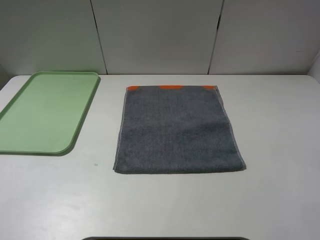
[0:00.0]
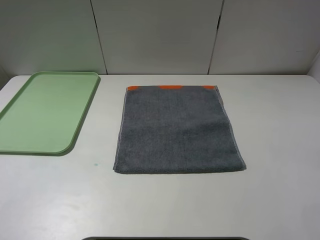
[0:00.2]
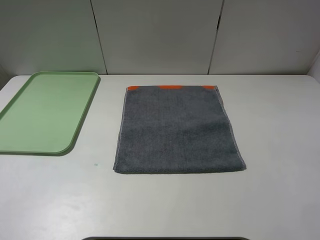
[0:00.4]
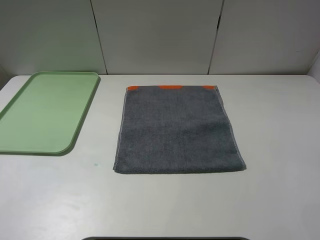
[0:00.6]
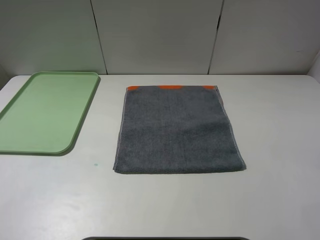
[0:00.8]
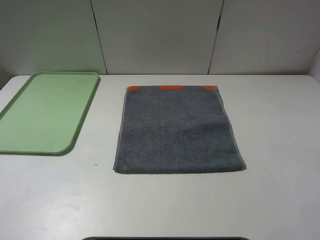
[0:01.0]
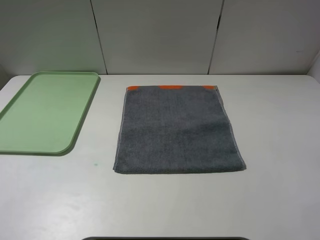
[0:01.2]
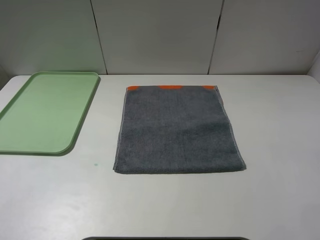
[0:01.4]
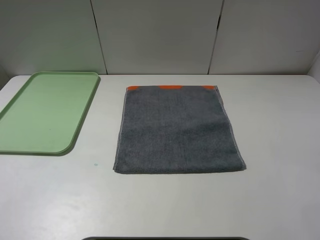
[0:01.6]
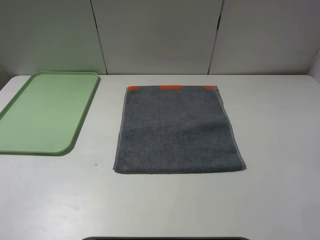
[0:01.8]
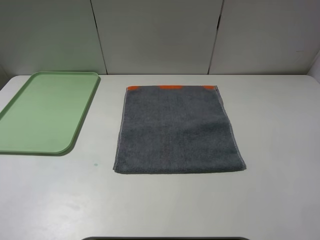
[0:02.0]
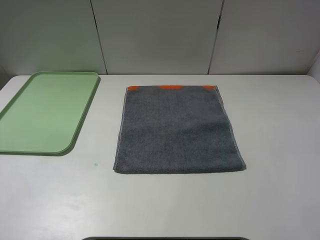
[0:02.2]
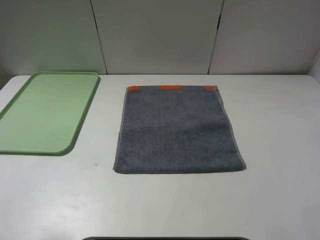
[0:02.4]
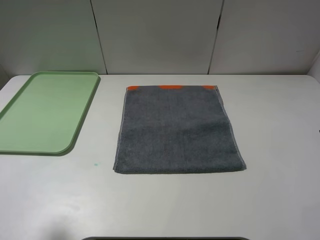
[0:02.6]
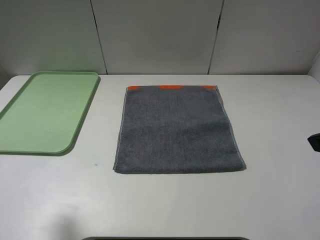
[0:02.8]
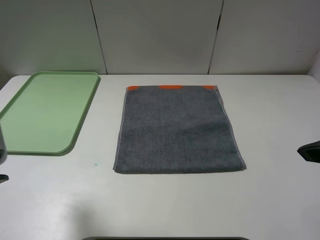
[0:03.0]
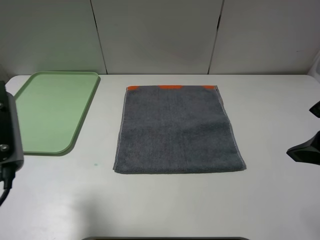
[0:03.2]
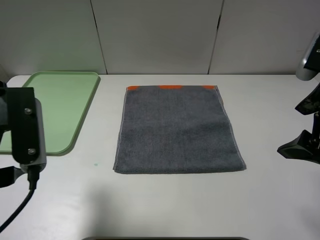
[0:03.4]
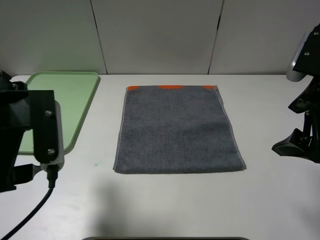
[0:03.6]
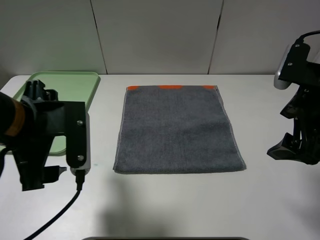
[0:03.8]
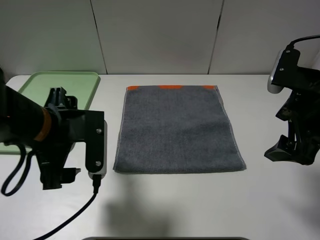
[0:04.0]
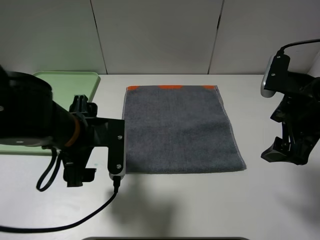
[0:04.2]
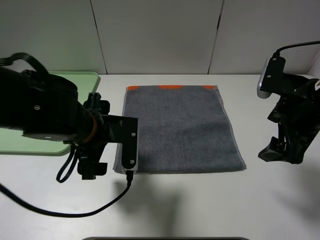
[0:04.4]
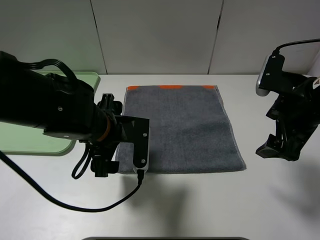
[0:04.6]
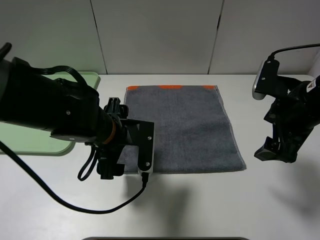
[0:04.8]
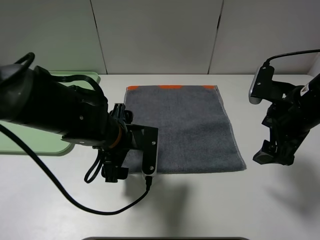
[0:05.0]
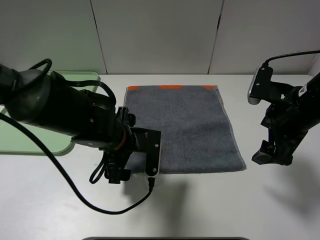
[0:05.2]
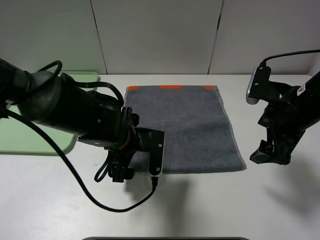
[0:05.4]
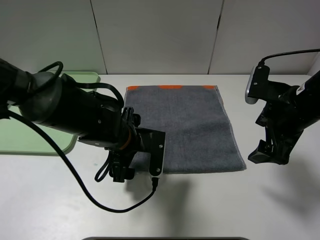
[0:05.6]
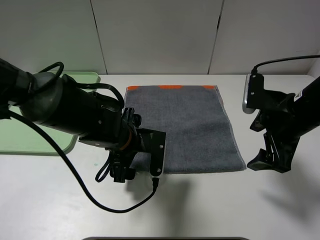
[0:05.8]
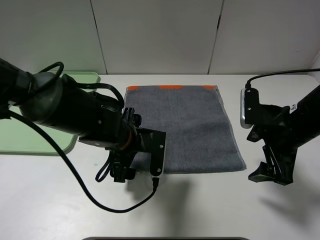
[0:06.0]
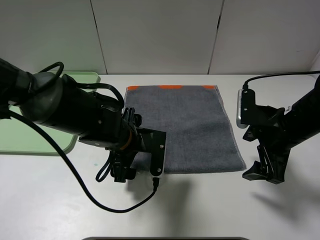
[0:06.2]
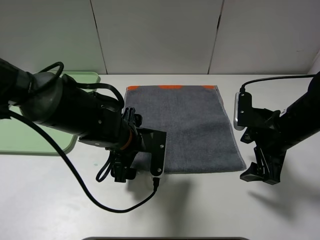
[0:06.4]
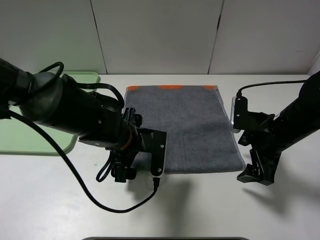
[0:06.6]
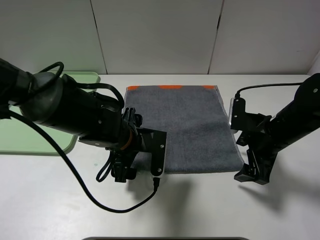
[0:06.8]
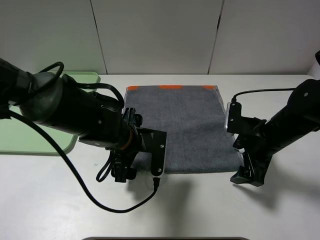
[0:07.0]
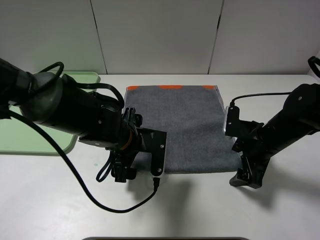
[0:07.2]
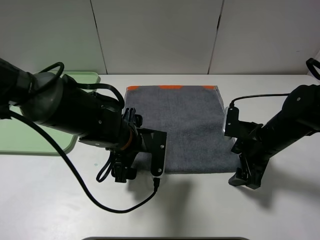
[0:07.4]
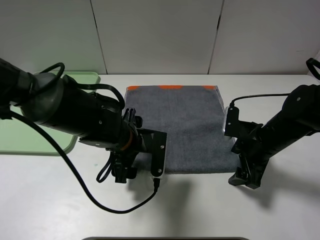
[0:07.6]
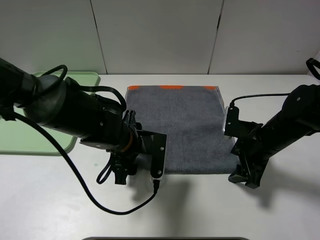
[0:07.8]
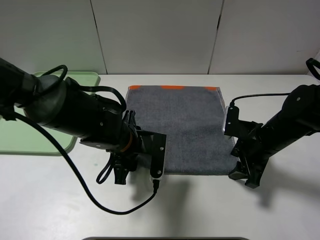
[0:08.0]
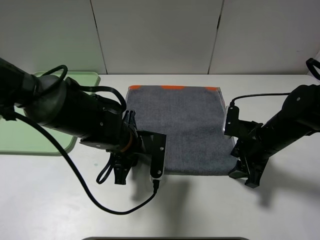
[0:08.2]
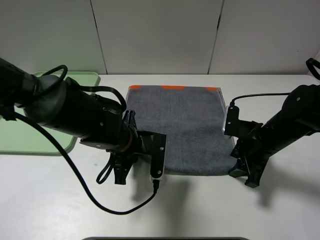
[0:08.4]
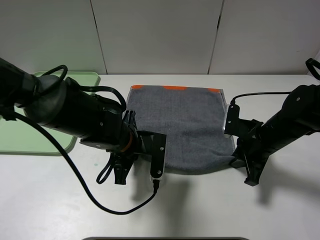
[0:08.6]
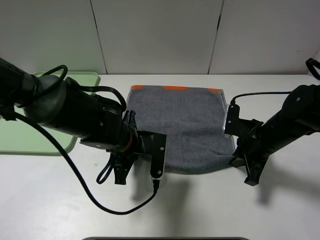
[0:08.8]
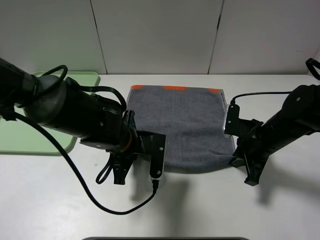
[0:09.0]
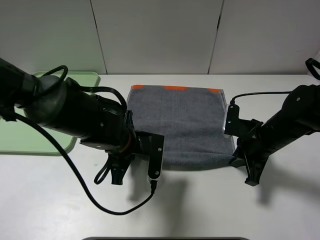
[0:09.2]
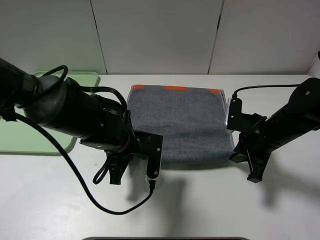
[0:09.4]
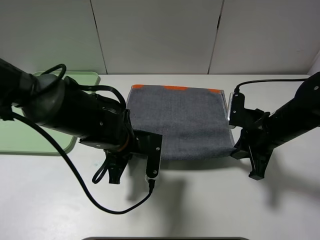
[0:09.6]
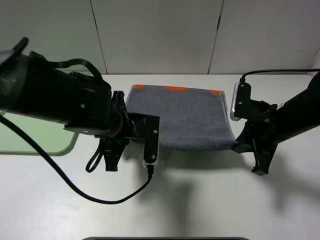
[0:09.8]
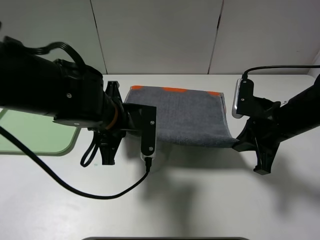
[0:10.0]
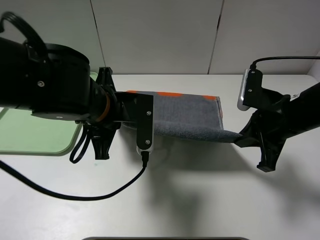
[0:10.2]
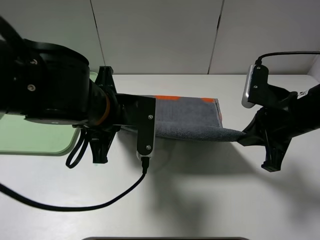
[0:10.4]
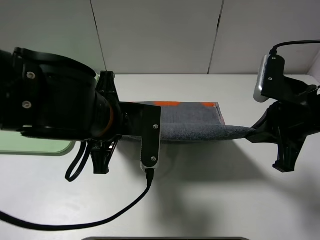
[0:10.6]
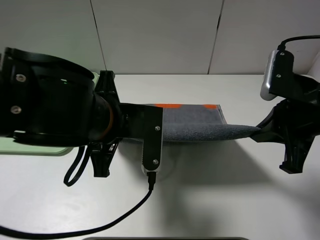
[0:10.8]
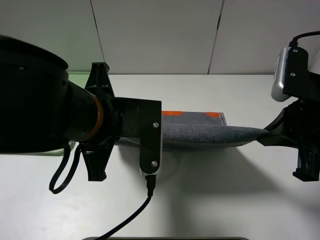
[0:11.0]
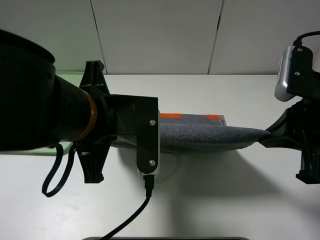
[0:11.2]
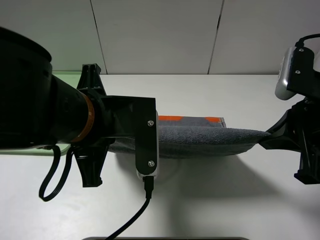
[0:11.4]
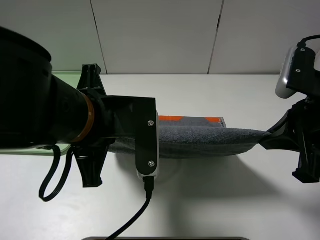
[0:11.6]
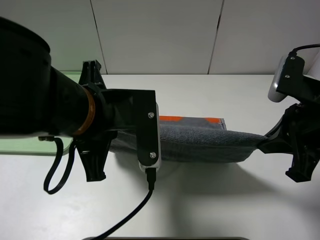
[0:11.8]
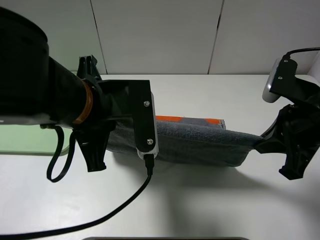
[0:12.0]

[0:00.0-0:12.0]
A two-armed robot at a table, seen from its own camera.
0:00.0 to 0:01.6: The two grippers keep their place.
0:01.6 to 0:03.0: The left gripper goes roughly 15 cm forward and to the right. Meanwhile the right gripper shifts roughly 15 cm forward.
0:03.0 to 0:04.4: The left gripper heads to the right, downward and forward, covering about 20 cm, while the right gripper shifts approximately 10 cm forward and downward.
0:04.4 to 0:06.0: The two grippers go about 5 cm downward.
0:06.0 to 0:07.6: The right gripper moves downward, approximately 5 cm.
0:07.6 to 0:09.0: The right gripper closes, while the left gripper closes up.
0:09.0 to 0:10.4: The grippers both shift upward by some 10 cm.

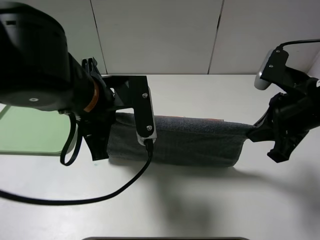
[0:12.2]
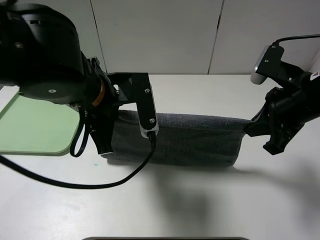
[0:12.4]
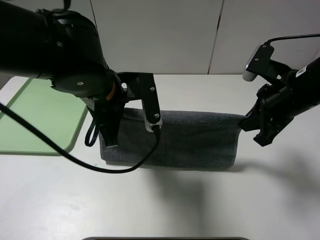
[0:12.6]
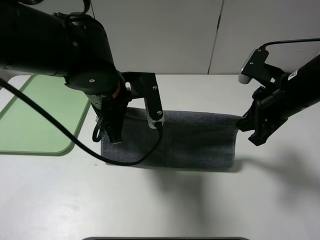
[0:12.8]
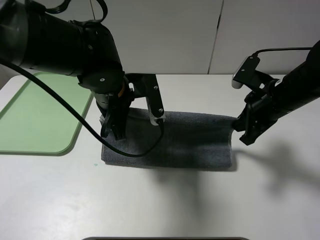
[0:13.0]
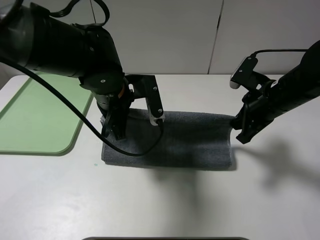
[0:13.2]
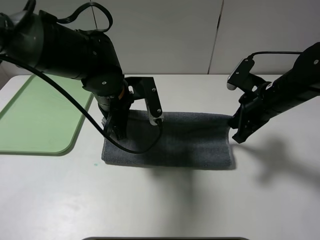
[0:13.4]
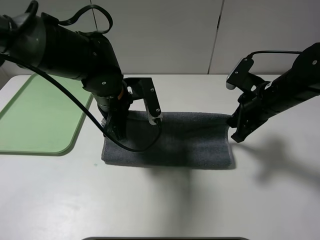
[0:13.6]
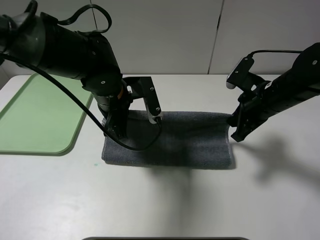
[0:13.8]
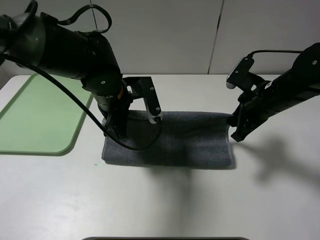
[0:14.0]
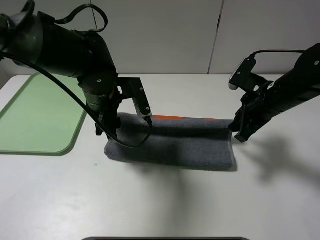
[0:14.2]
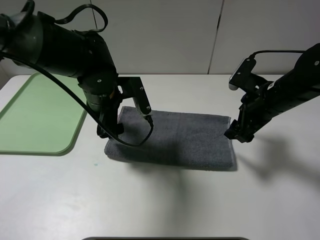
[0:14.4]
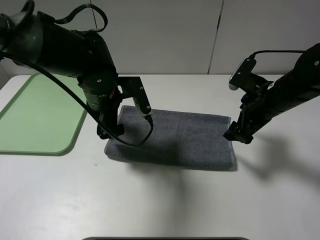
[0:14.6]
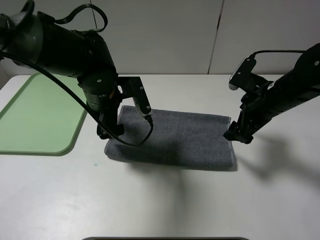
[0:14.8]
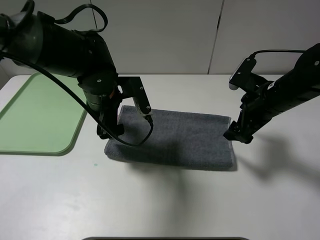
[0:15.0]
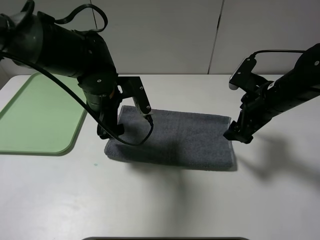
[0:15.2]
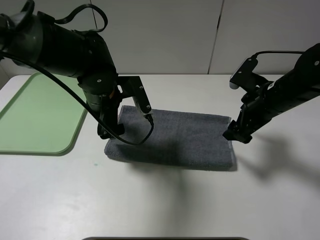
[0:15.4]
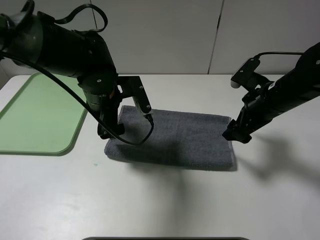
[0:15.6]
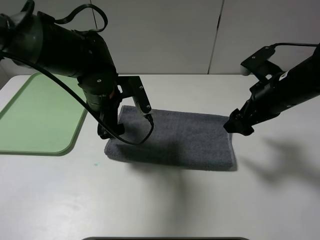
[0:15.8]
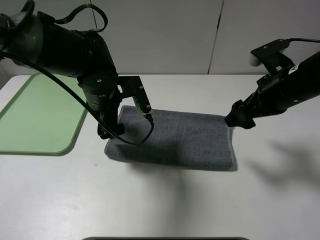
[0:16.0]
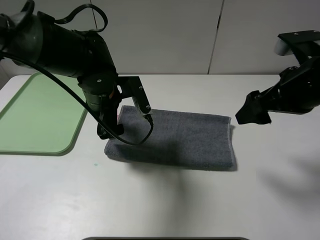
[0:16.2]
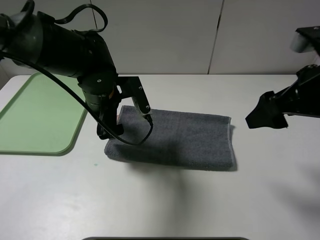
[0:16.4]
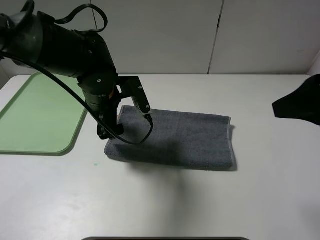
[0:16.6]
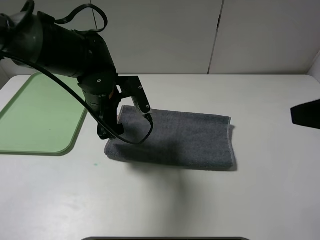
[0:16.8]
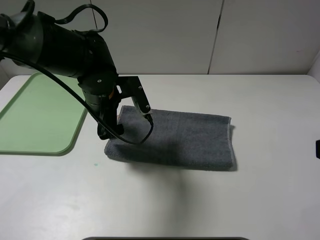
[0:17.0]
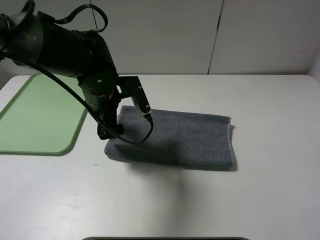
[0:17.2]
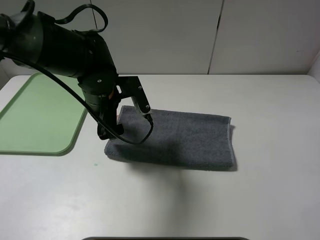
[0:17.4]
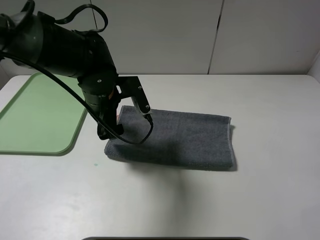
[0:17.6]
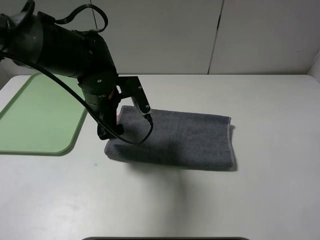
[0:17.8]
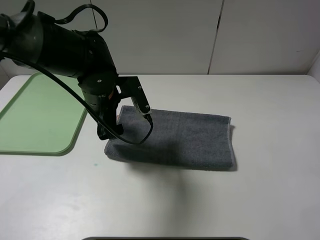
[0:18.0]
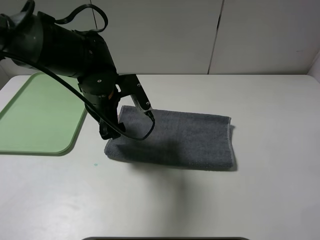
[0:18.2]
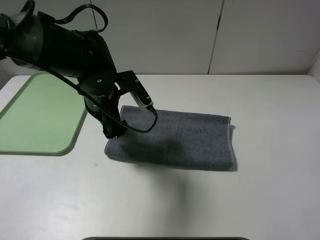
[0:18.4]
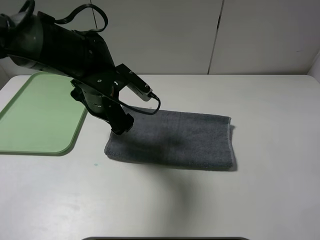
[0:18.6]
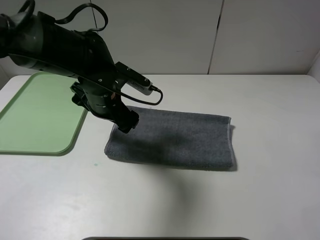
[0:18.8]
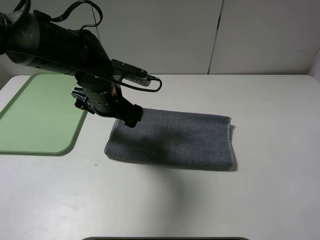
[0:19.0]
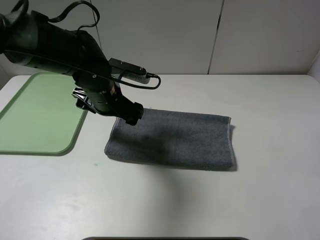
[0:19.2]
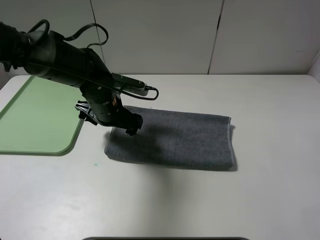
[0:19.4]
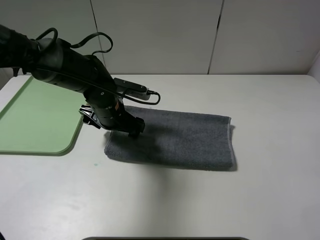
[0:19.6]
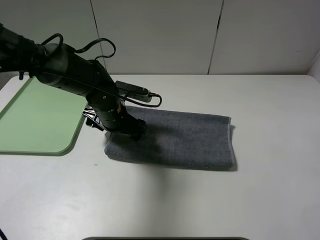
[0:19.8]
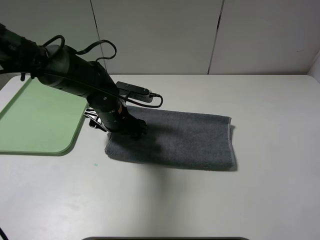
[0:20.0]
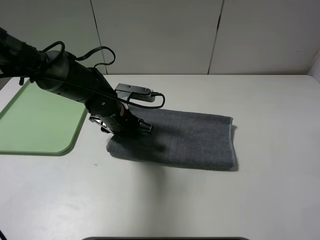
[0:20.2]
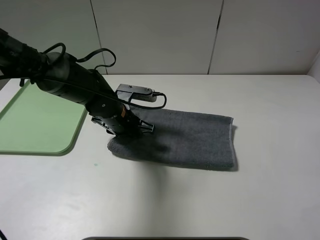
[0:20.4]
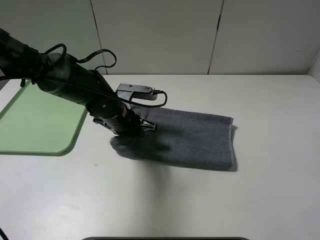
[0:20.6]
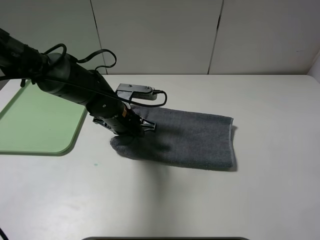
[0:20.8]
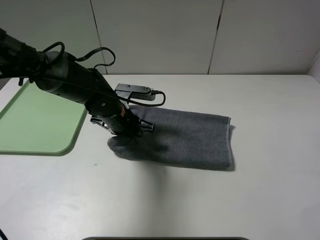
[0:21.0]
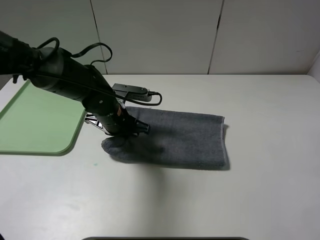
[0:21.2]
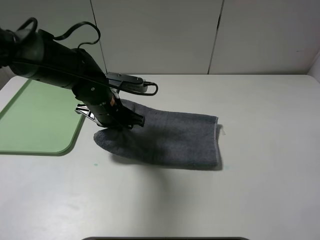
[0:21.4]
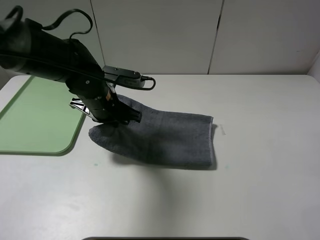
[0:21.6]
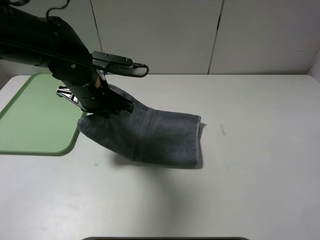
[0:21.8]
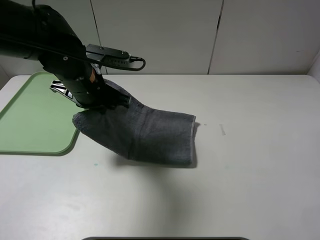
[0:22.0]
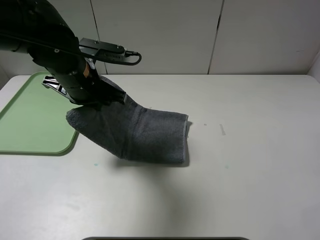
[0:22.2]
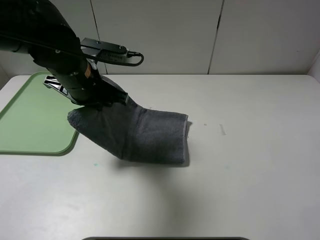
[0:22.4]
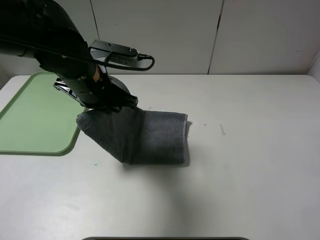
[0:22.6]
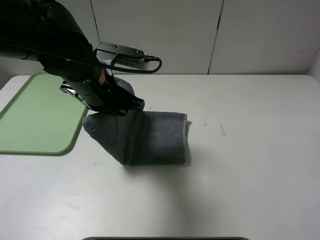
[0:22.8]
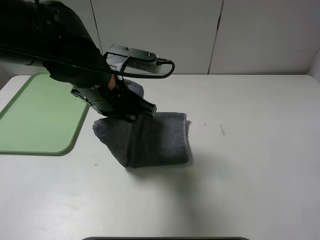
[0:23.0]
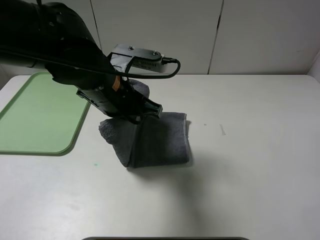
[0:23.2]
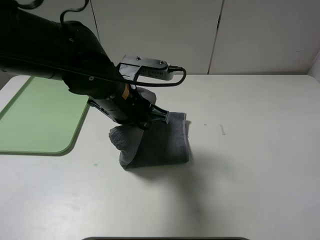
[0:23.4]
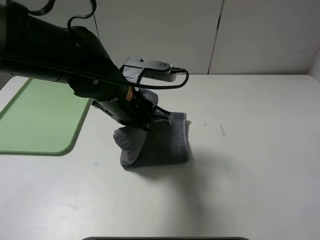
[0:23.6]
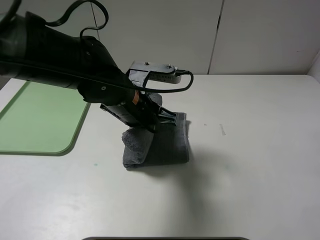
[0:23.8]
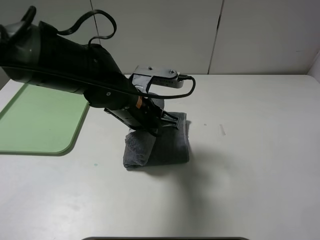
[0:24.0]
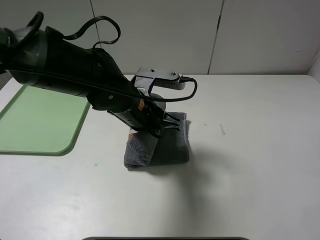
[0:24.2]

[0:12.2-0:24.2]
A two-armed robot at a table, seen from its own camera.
Step, 0:12.2 to 0:14.4: Fold the grey towel upwards.
0:12.2 to 0:13.8: The two grippers go some 10 cm forward and downward.
0:13.8 to 0:15.2: The right gripper opens its fingers; the left gripper opens.
0:15.2 to 0:16.6: The right gripper goes approximately 20 cm upward and backward.
0:16.6 to 0:18.2: The right gripper moves backward, some 15 cm.
0:18.2 to 0:19.8: The left gripper goes about 5 cm downward.
0:19.8 to 0:21.2: The left gripper closes its fingers.
0:21.2 to 0:22.6: The left gripper goes some 10 cm upward.
0:22.6 to 0:24.2: The left gripper travels to the right and downward by roughly 10 cm.
